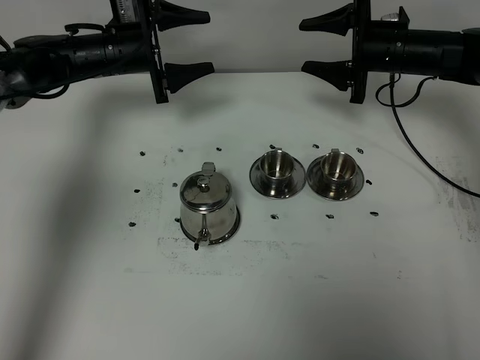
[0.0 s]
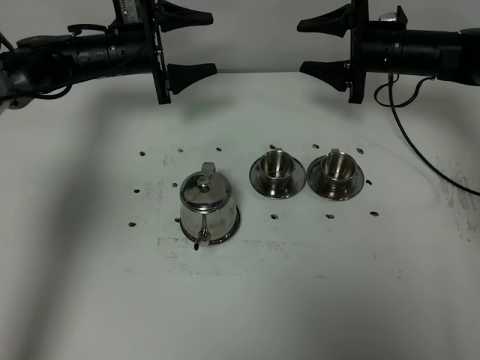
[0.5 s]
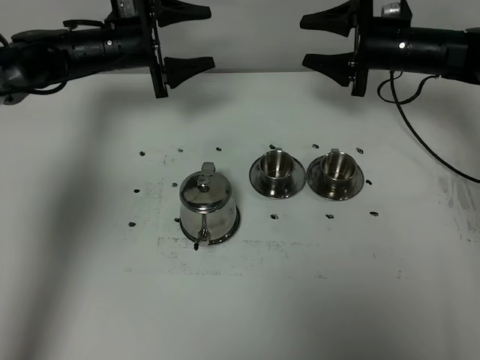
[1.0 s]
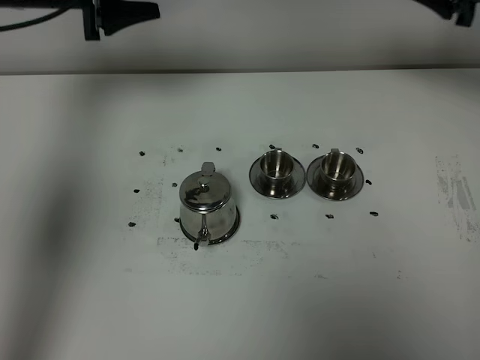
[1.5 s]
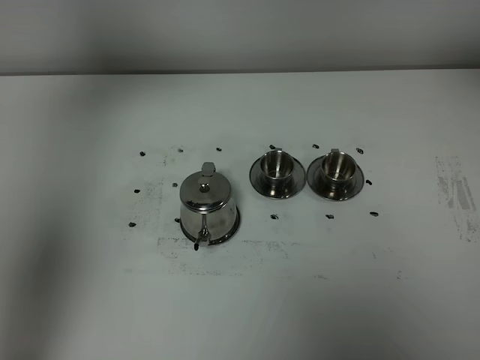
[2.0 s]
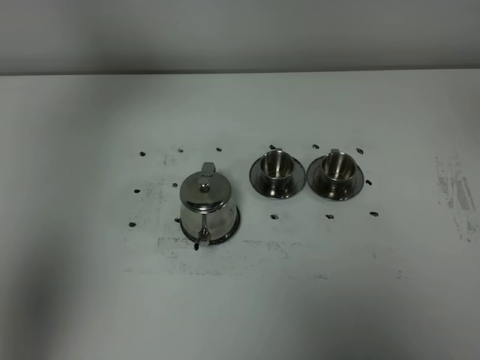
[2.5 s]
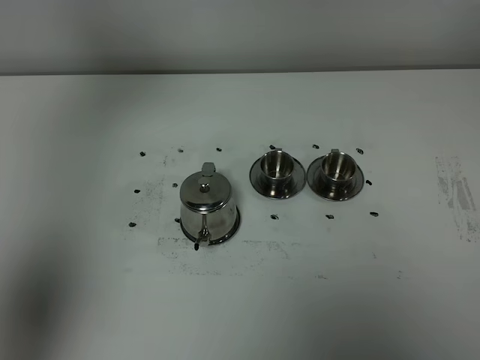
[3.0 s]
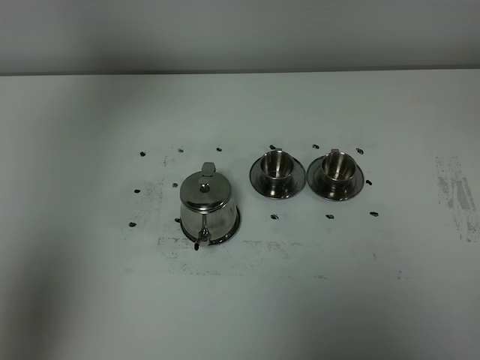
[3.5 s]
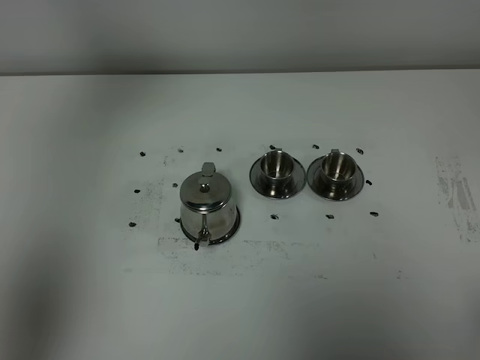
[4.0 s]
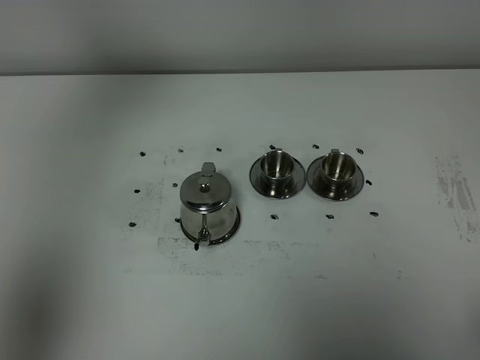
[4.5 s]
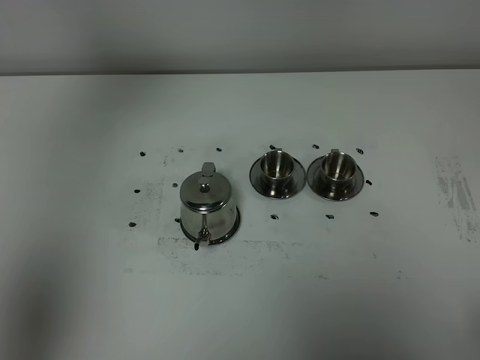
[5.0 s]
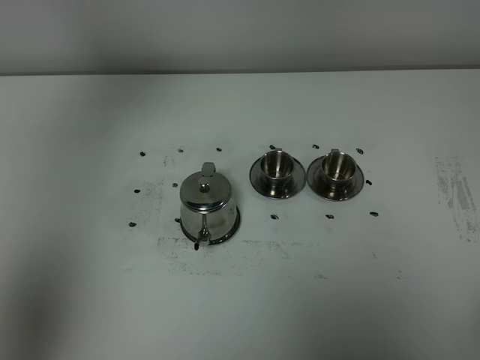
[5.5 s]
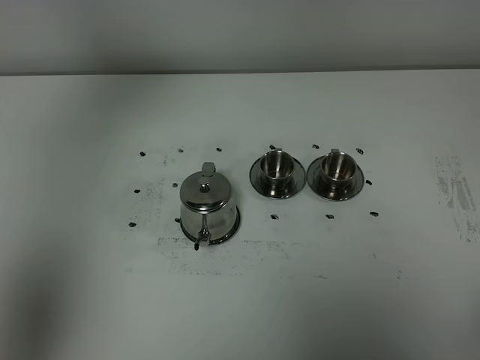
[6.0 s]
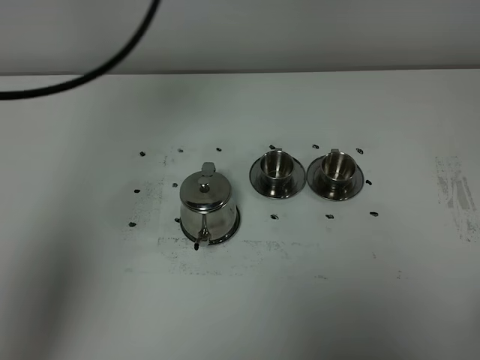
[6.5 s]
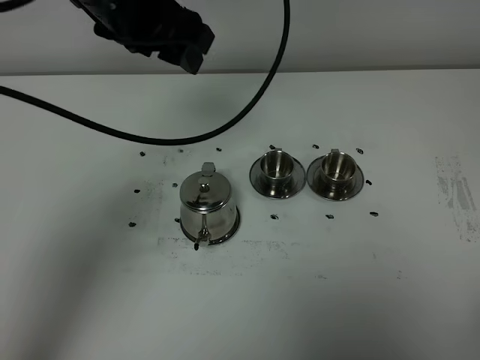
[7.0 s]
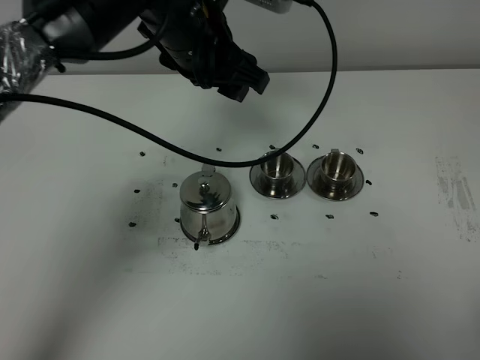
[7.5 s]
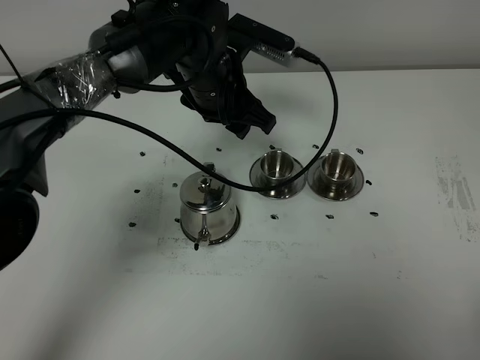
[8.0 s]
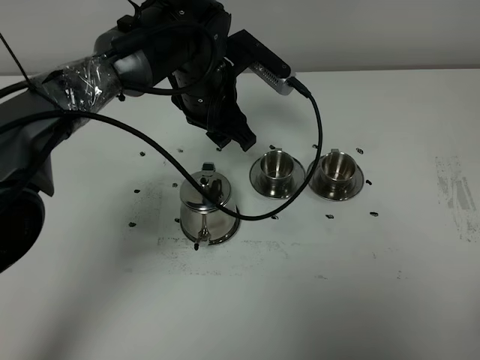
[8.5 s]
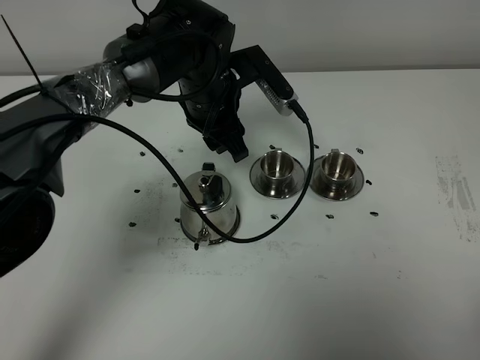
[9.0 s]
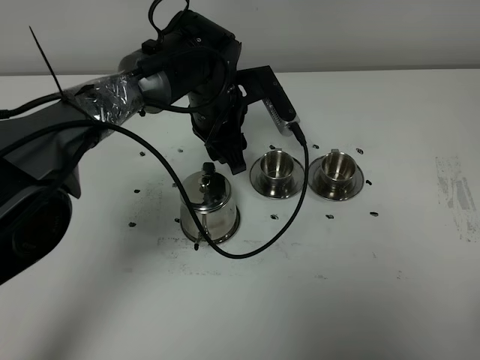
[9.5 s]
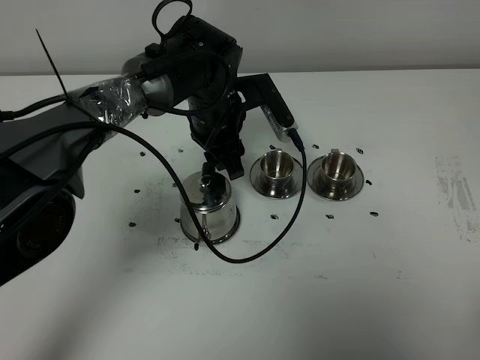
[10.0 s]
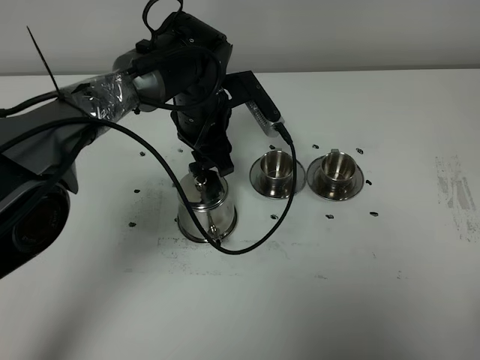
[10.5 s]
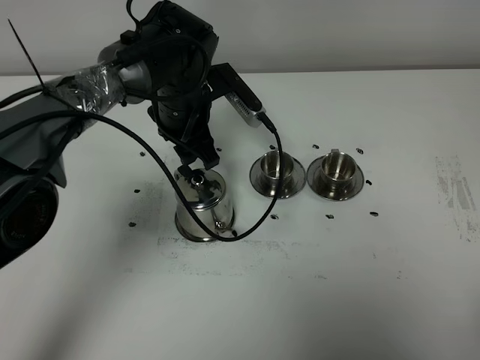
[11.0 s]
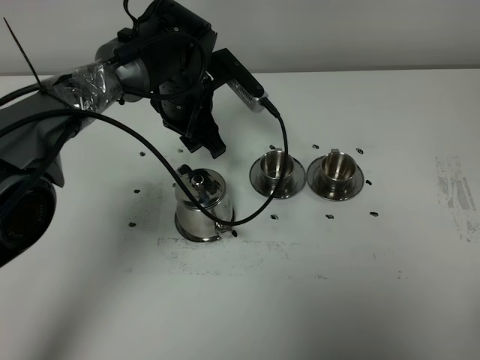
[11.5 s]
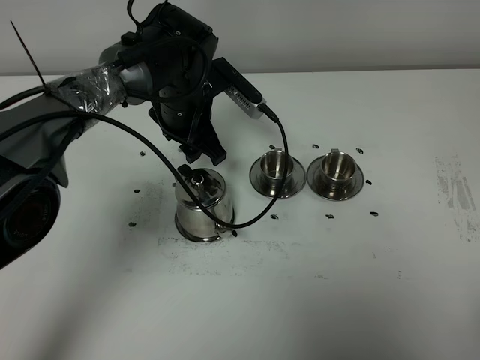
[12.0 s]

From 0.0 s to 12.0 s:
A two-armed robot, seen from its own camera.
Task of the whole recording: grasp the stainless steel teapot and pour the tea into the two stainless steel teacups one by one, put the stainless steel teapot back in its original place.
From 0.0 s to 2.0 s: The right gripper moves upward, backward and to the right, approximately 40 cm. Meanwhile the left gripper goes roughly 30 cm upward and backward.
From 6.0 s to 8.0 s: The left gripper goes approximately 40 cm downward, to the right and forward, and closes up.
From 8.0 s to 10.0 s: The left gripper travels downward by some 5 cm.
From 10.0 s to 12.0 s: The grippers stay close to where they were, moving slightly.

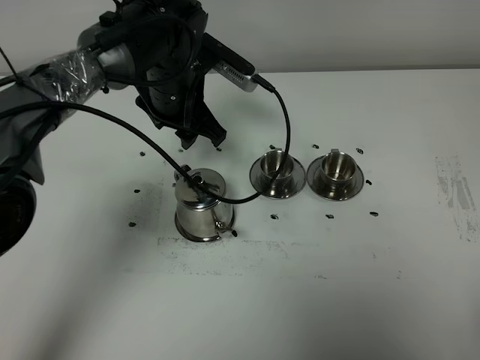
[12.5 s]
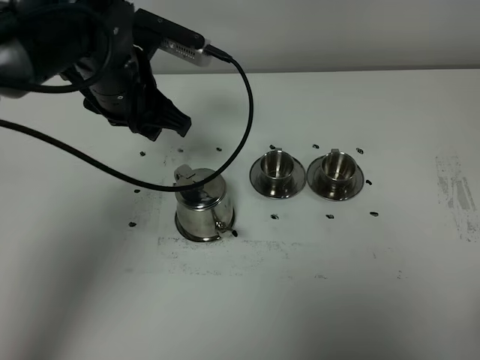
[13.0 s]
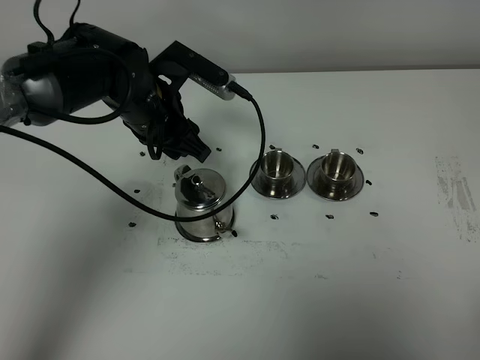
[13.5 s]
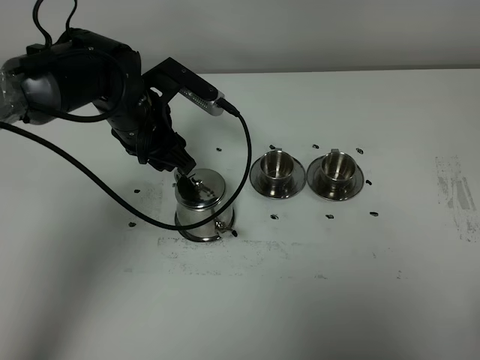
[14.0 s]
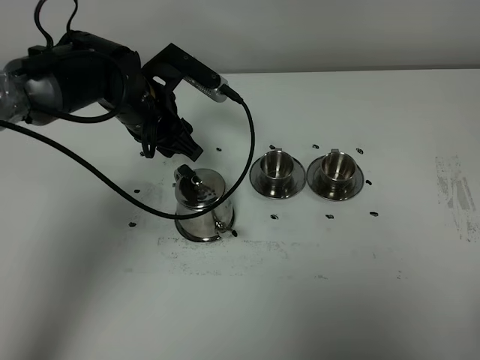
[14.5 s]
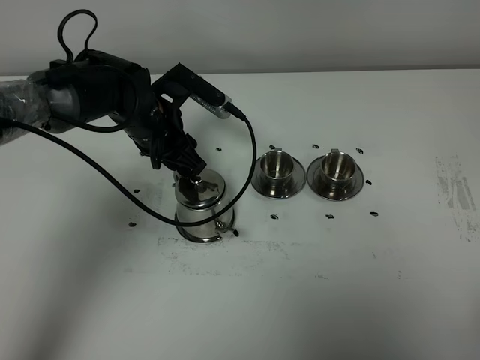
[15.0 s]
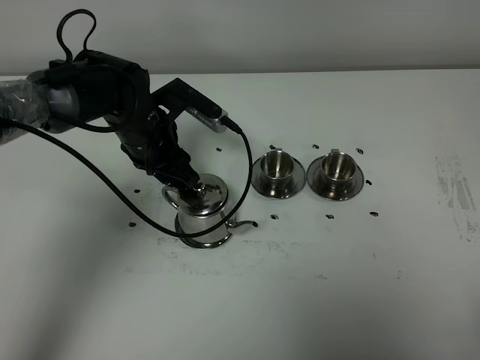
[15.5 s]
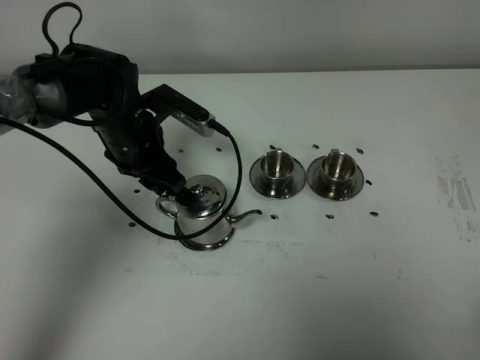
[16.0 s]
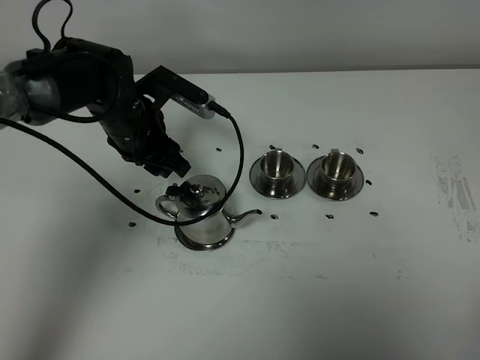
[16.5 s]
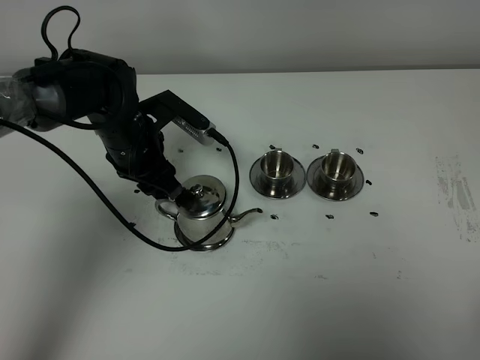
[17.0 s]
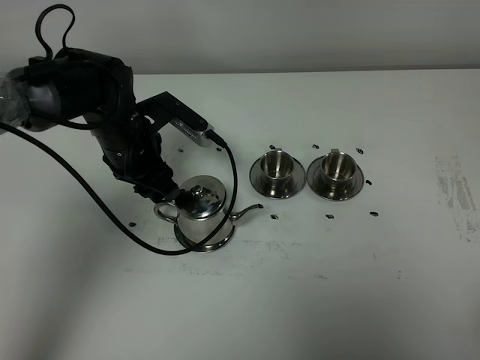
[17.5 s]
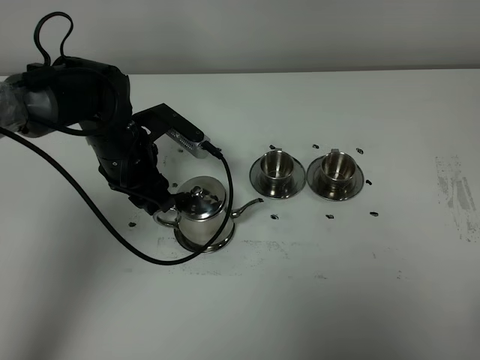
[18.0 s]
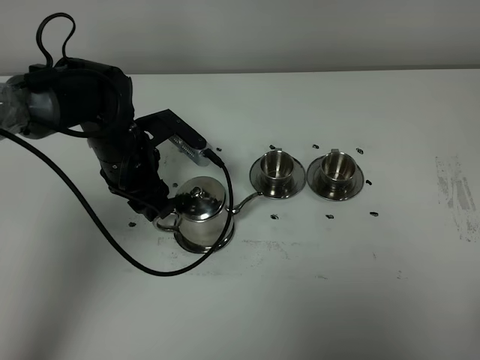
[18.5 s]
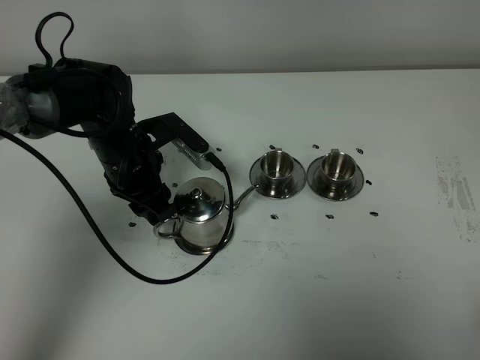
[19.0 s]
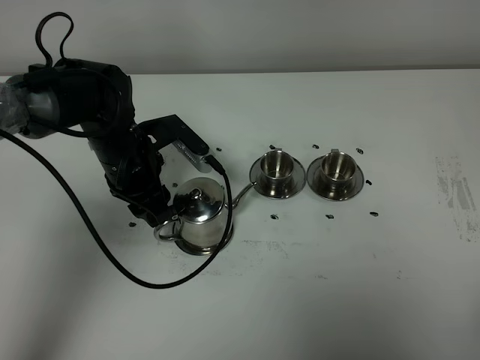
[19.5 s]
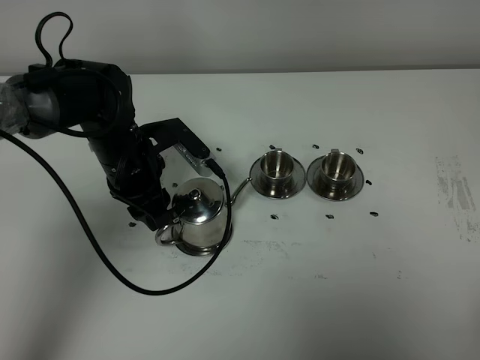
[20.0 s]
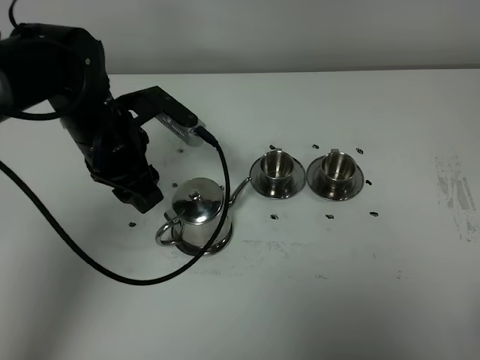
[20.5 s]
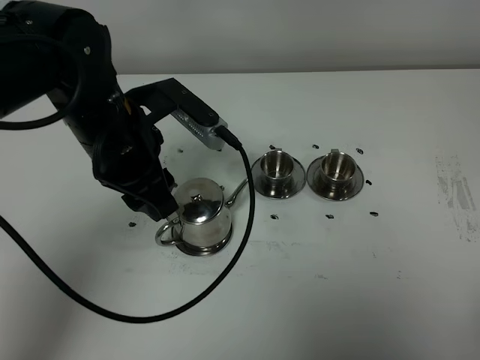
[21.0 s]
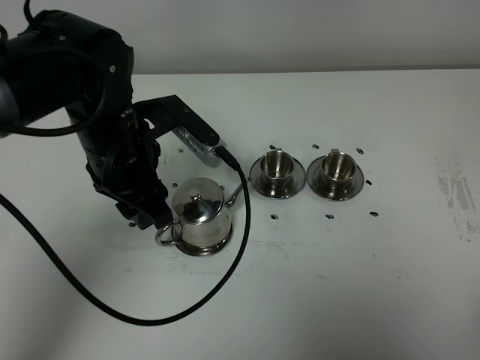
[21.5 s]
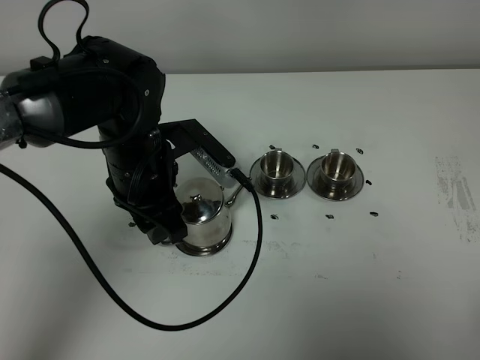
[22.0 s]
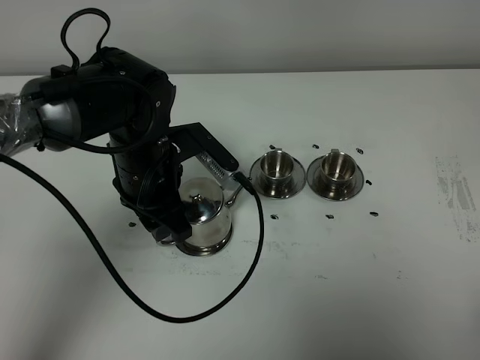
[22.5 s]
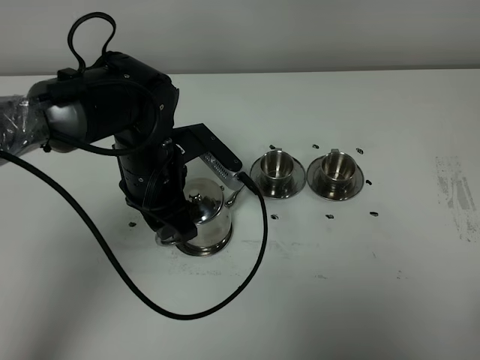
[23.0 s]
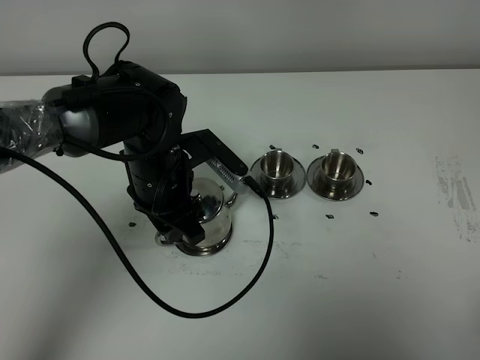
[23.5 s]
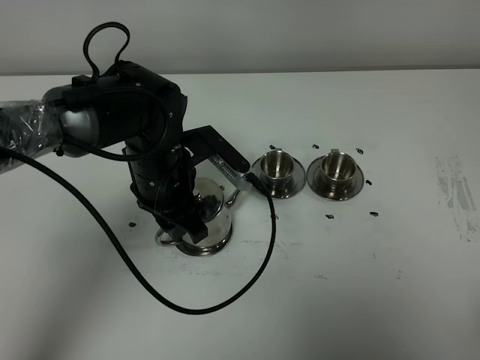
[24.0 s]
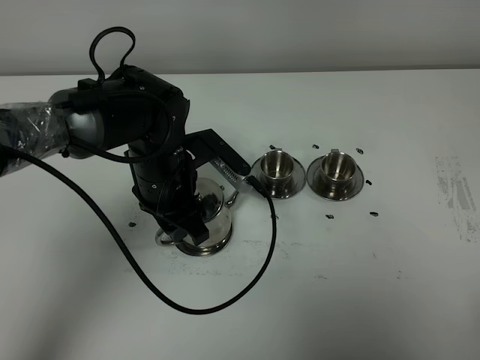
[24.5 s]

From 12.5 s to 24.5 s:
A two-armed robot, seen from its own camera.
Task of the whole recording: grasp the stainless steel teapot and pour the tea into the two stainless steel teacups one by one, put the stainless steel teapot back in its original place.
From 12.5 s to 14.5 s: The left gripper shifts by some 5 cm.
From 14.5 s to 16.5 s: There are only small adjustments of the grippers.
From 16.5 s to 18.5 s: The grippers make only small movements.
From 18.5 s to 20.5 s: The left gripper travels upward by about 5 cm.
From 20.5 s to 22.5 s: The left gripper moves roughly 5 cm.
From 22.5 s to 24.5 s: The grippers stay close to where they were, moving slightly.

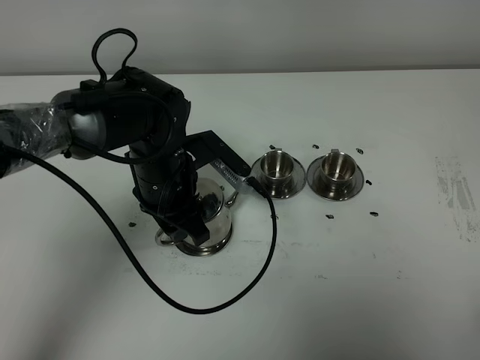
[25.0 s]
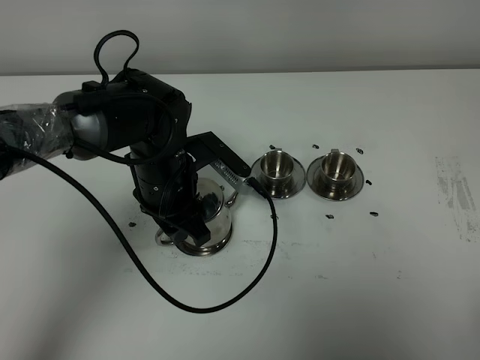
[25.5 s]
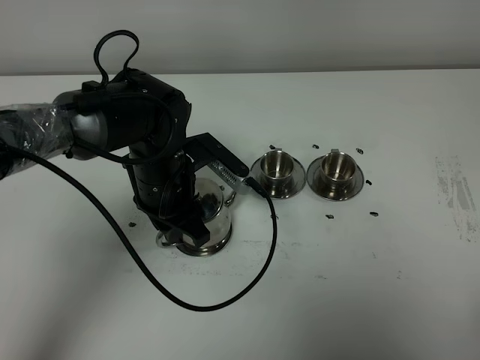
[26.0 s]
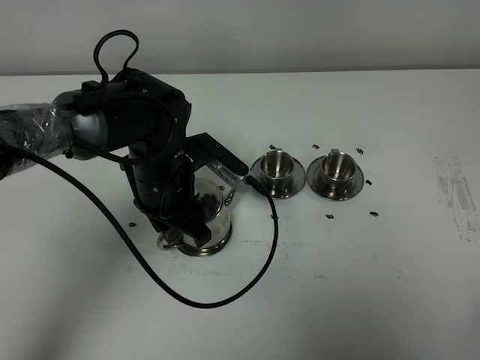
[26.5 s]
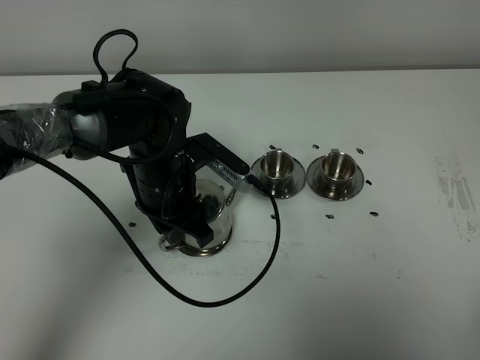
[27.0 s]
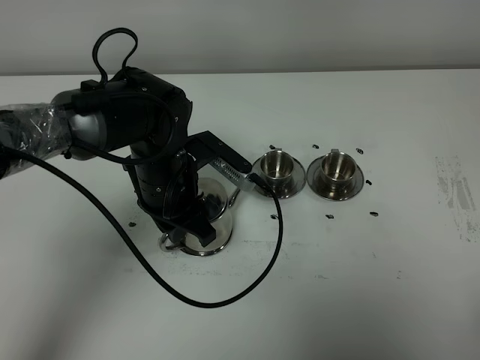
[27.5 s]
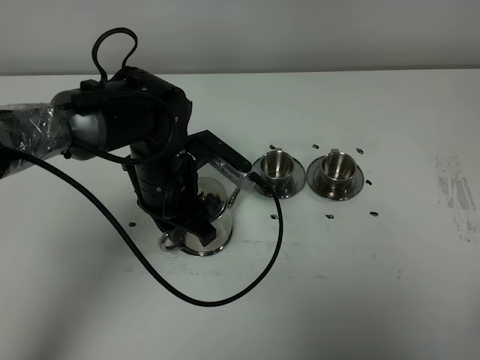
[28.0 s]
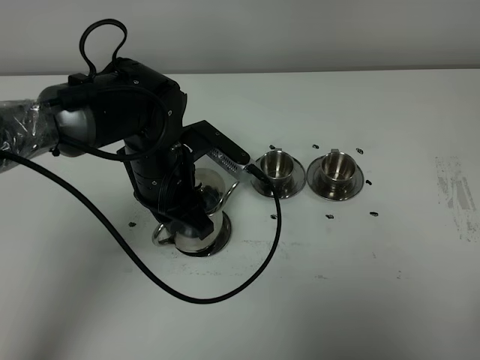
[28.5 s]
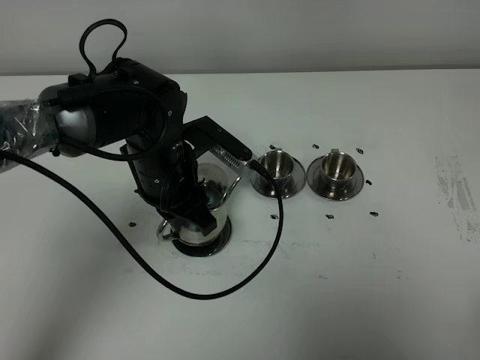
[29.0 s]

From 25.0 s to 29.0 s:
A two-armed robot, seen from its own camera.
Task of the whole recording: grasp the stainless steel teapot and pour the tea into the two stainless steel teacups one by one, put the stainless steel teapot back in its original place.
Step, from 25.0 s to 28.5 s: Pick up the teapot with the left gripper.
From 25.0 s to 27.0 s: The left gripper closes its fingers.
From 27.0 s to 29.0 s: The grippers stay close to where they were, moving slightly.
